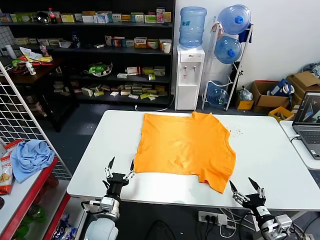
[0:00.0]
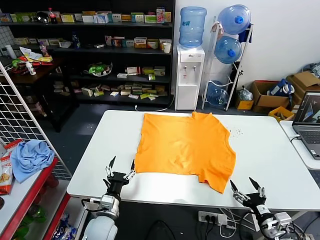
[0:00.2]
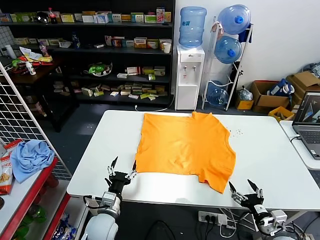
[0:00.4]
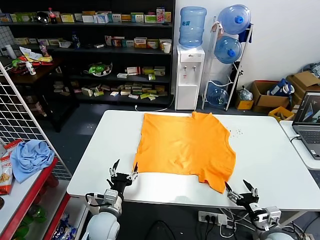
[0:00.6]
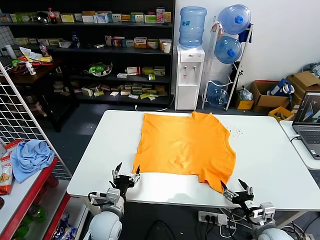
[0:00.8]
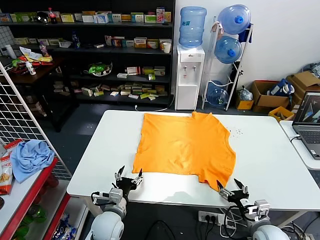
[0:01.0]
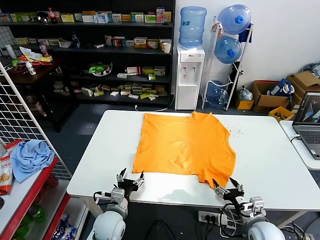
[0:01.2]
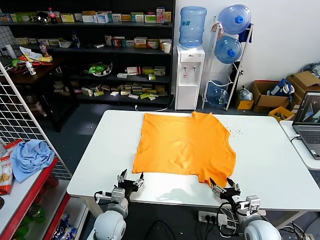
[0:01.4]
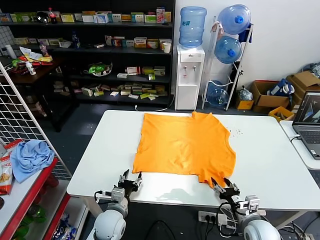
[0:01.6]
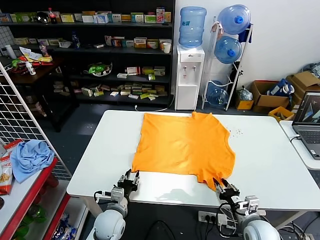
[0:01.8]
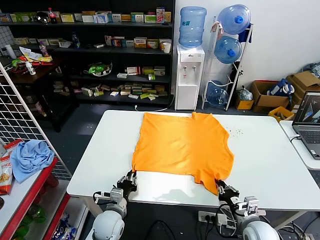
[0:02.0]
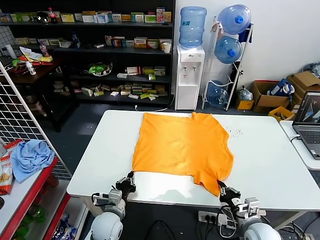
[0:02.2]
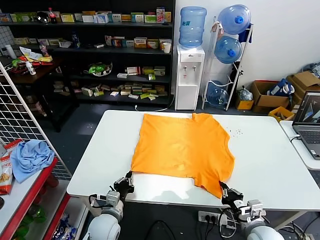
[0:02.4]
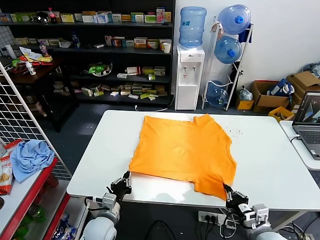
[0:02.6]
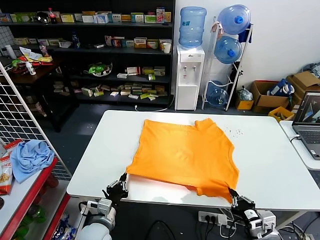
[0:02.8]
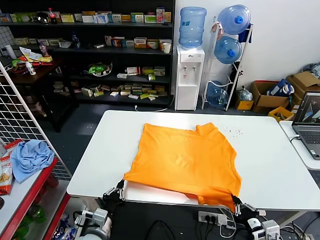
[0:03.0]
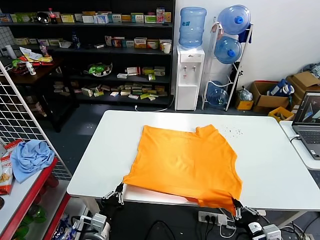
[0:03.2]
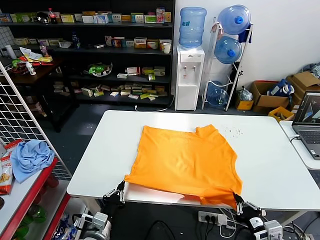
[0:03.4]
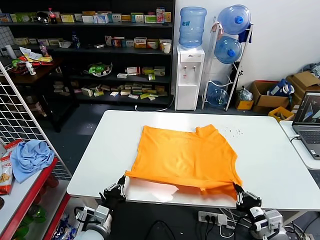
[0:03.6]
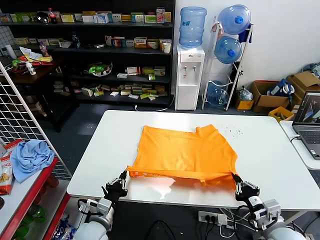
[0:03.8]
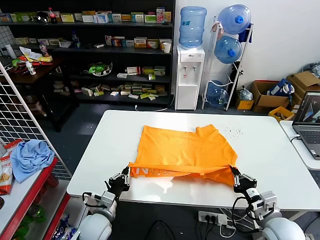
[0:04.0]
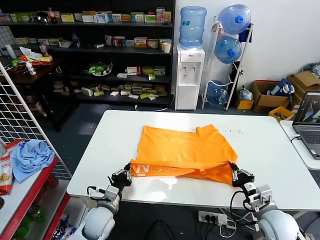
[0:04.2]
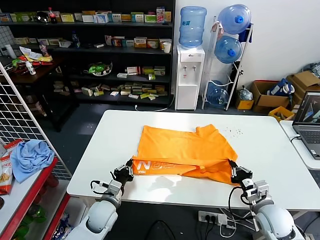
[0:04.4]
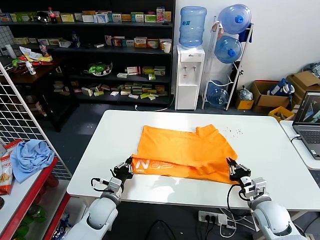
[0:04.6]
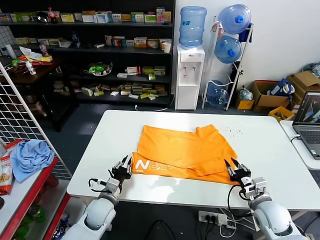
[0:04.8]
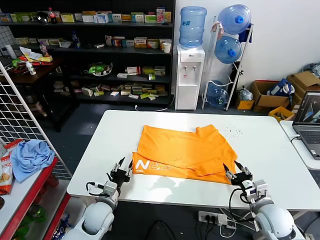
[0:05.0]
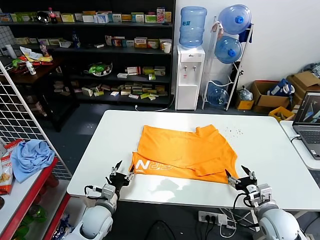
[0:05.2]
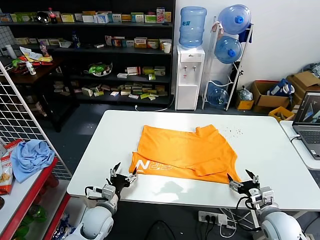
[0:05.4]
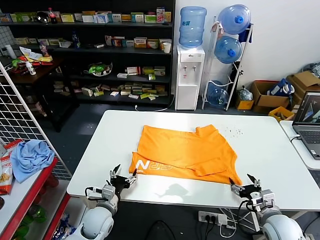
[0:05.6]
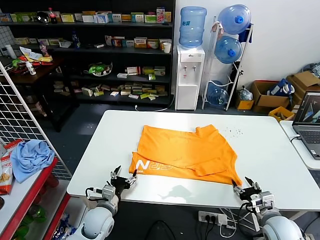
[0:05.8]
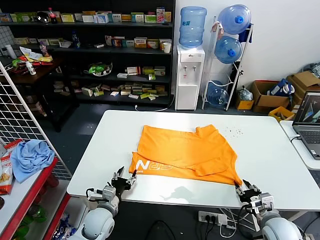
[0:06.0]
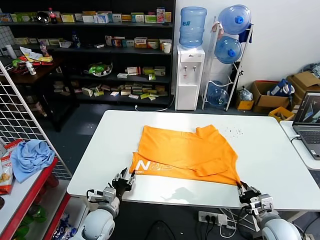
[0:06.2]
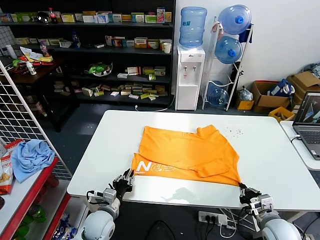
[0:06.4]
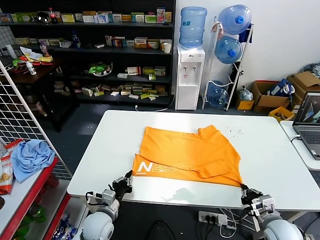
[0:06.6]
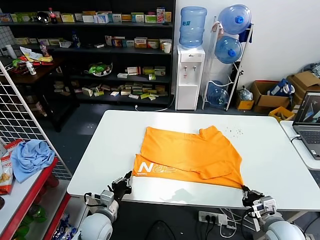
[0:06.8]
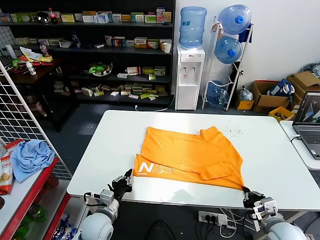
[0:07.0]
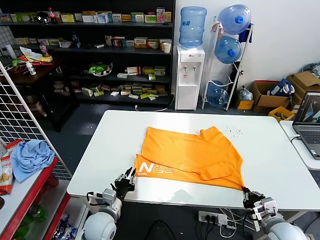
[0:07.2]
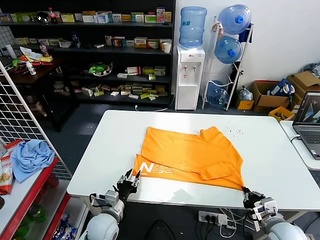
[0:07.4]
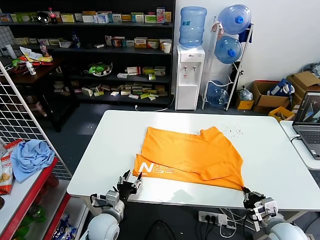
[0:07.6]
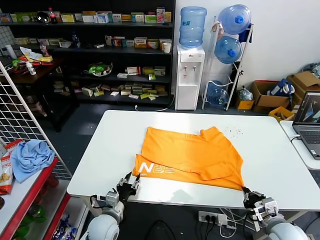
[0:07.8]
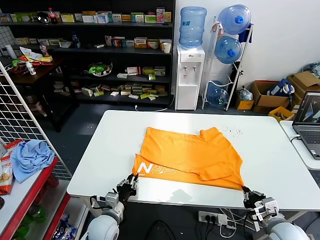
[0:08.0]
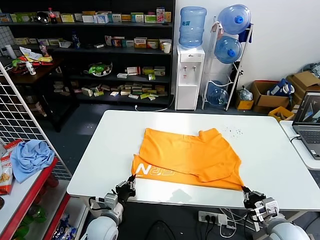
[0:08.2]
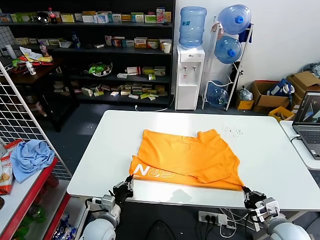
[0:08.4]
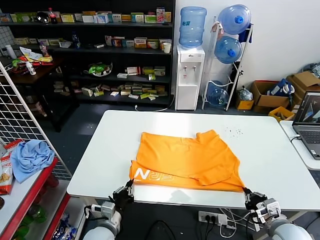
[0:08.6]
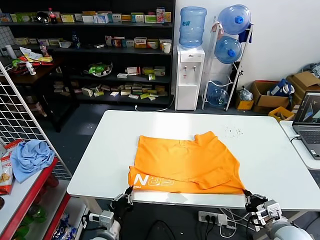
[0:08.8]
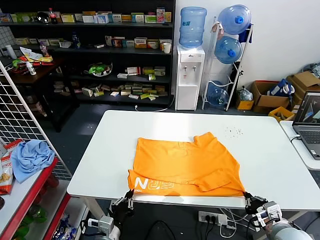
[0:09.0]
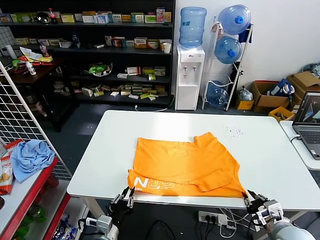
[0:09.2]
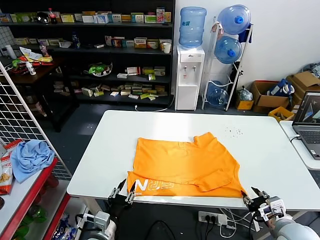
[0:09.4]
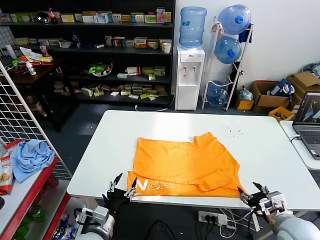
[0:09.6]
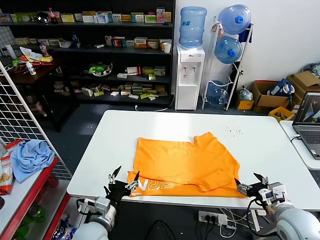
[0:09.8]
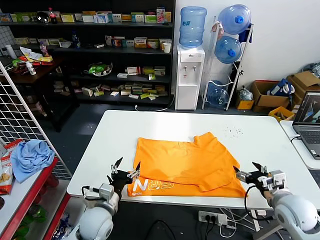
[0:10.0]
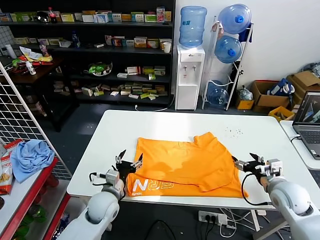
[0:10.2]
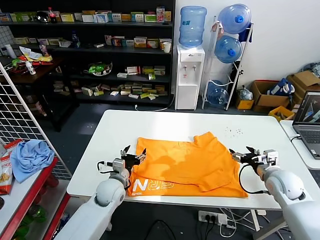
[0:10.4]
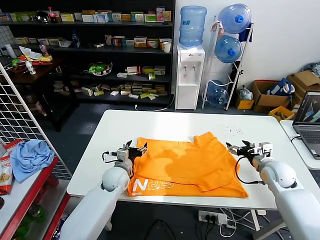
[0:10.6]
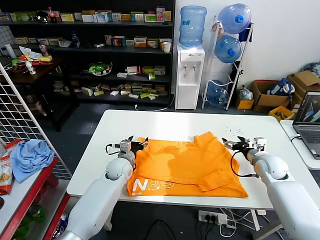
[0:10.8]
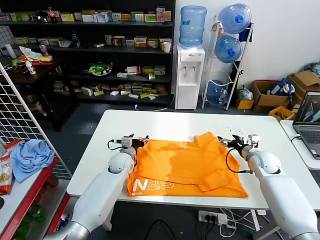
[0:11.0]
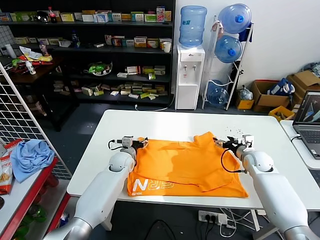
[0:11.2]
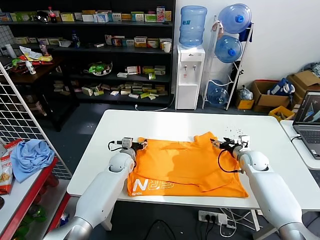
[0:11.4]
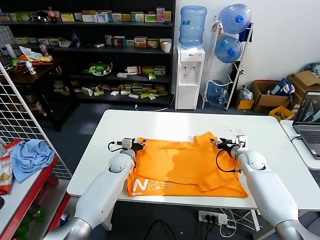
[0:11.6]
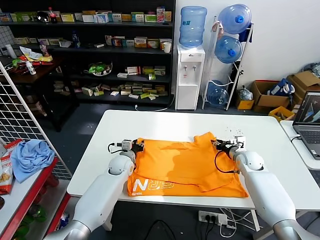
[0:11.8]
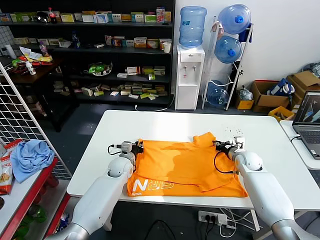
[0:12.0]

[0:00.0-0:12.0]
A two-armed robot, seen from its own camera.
Task of the whole recording: fold and organize the clothes.
Step, 0:00.0 to 0:02.0: use both grippers simultaneously to clamp the lower edge of the clothing fabric.
Step, 0:02.2 to 0:05.0: use both grippers to drag the lower edge of the fabric forward and fold it over the upper edge.
Step, 0:05.2 to 0:09.6: Drag the clothes downward with both gripper.
0:01.6 to 0:03.0: The right gripper heads backward and upward, covering about 15 cm, and closes up, while the left gripper goes some 10 cm backward, and closes up.
0:03.0 to 0:04.4: The grippers both shift forward by roughly 15 cm.
0:04.4 to 0:06.0: The right gripper opens up, while the left gripper opens up.
0:06.0 to 0:07.6: The left gripper closes and opens again. Meanwhile the right gripper closes its fingers.
0:07.6 to 0:09.0: The left gripper moves backward, approximately 10 cm, and closes.
0:09.0 to 0:10.4: Both grippers move forward, some 20 cm. The left gripper opens up, while the right gripper opens.
0:10.4 to 0:12.0: The right gripper goes about 15 cm forward and downward, and closes. The left gripper shifts roughly 10 cm forward, and closes.

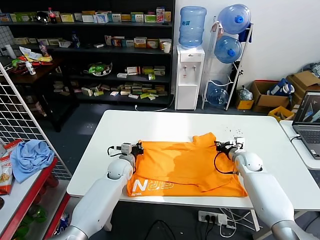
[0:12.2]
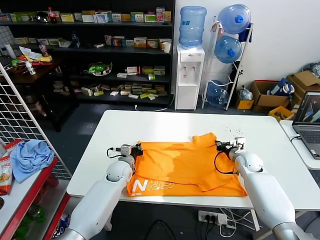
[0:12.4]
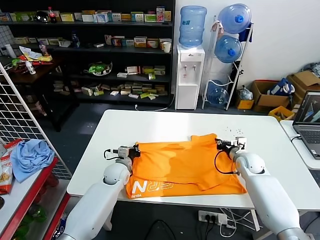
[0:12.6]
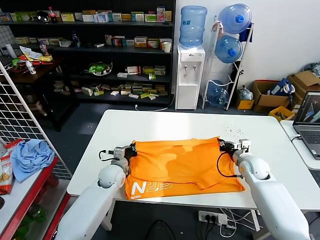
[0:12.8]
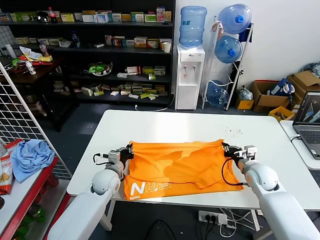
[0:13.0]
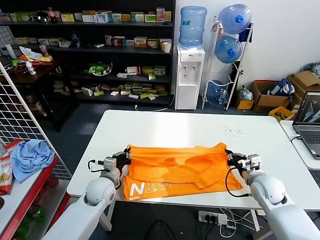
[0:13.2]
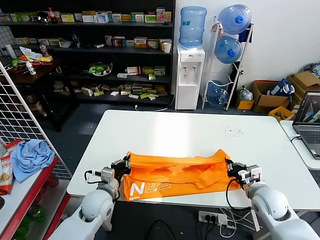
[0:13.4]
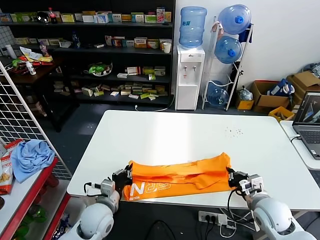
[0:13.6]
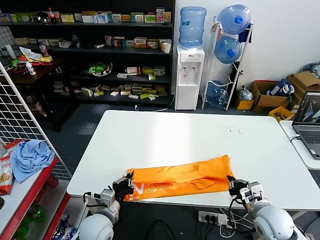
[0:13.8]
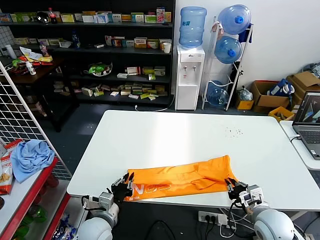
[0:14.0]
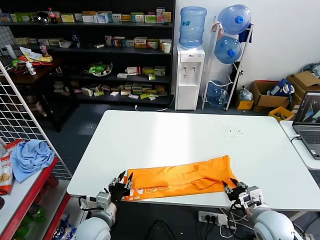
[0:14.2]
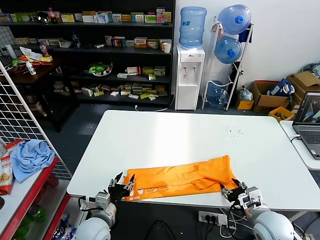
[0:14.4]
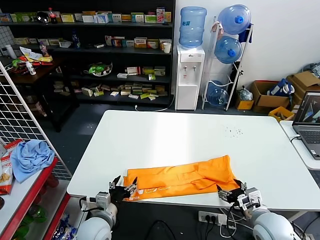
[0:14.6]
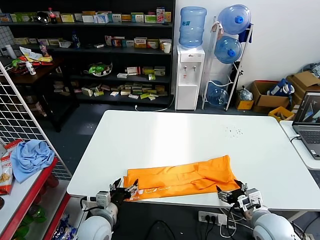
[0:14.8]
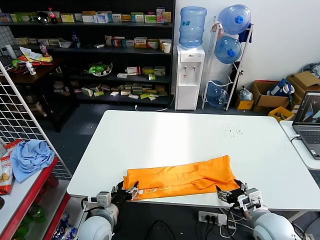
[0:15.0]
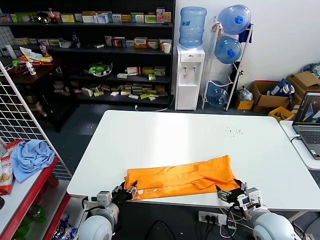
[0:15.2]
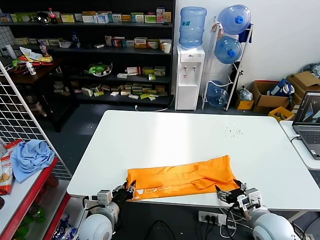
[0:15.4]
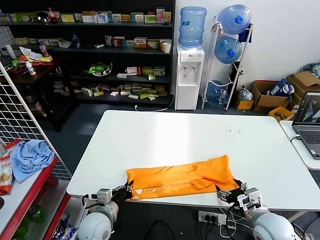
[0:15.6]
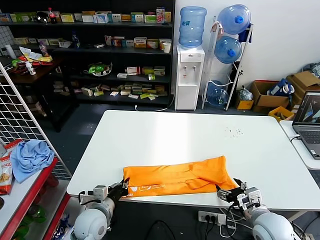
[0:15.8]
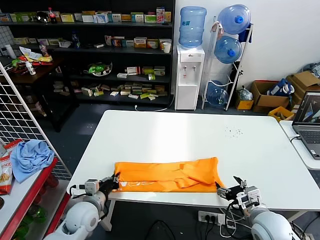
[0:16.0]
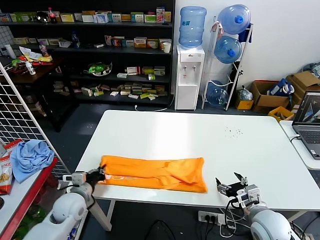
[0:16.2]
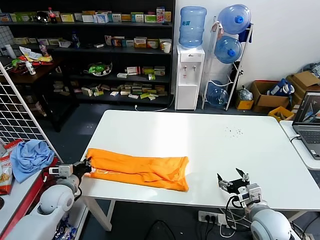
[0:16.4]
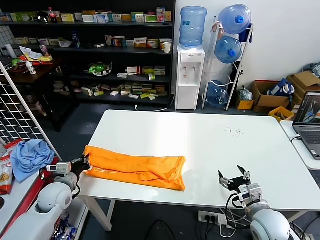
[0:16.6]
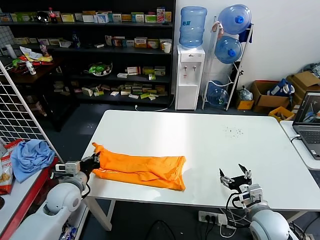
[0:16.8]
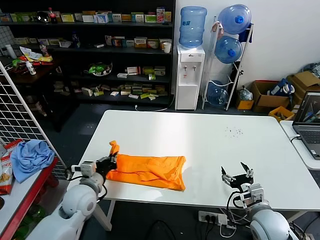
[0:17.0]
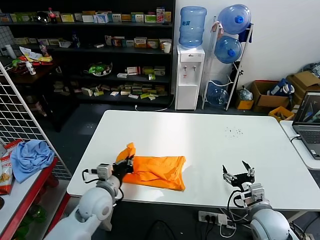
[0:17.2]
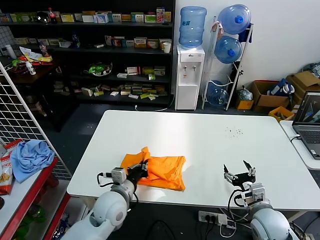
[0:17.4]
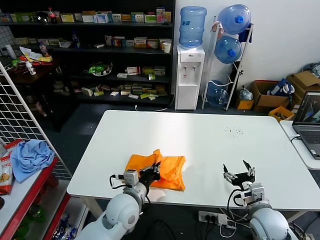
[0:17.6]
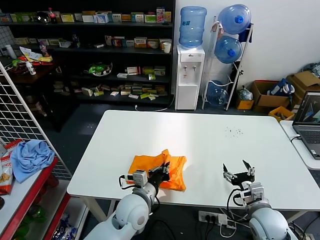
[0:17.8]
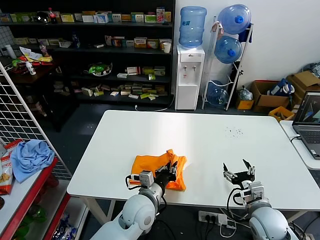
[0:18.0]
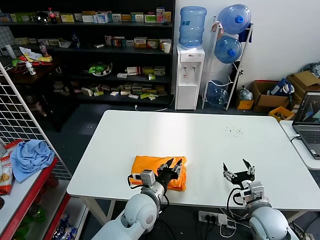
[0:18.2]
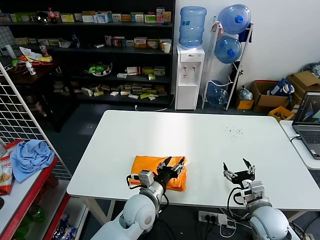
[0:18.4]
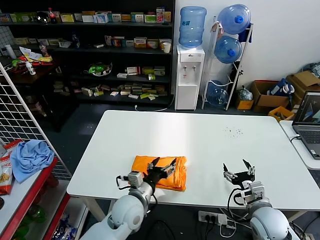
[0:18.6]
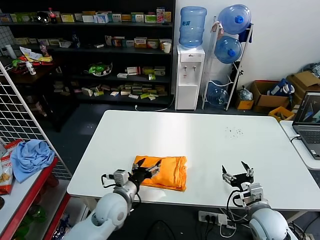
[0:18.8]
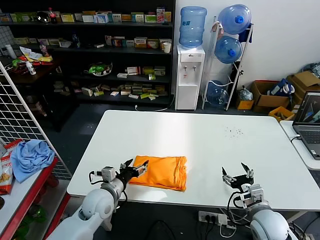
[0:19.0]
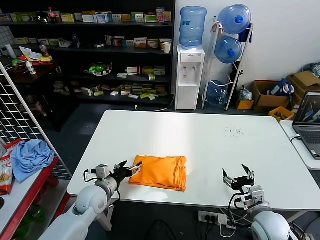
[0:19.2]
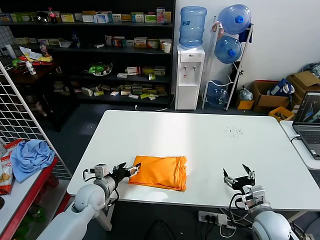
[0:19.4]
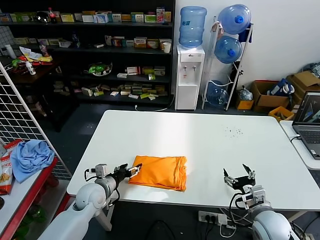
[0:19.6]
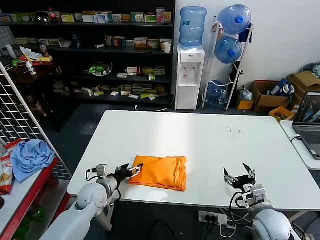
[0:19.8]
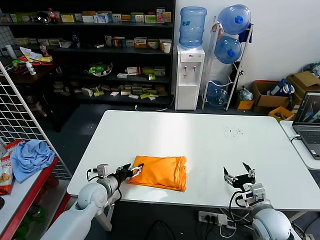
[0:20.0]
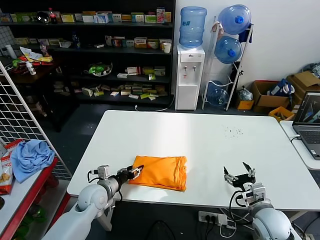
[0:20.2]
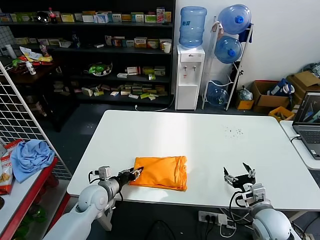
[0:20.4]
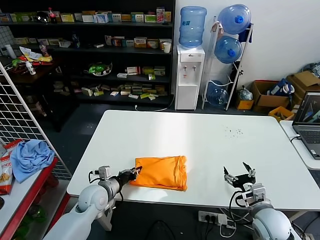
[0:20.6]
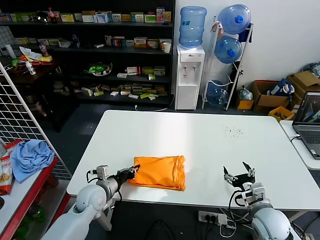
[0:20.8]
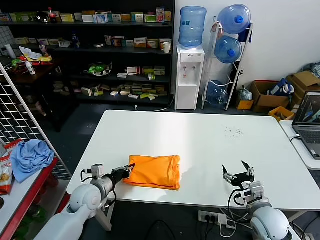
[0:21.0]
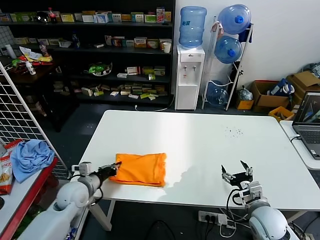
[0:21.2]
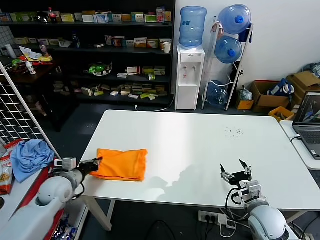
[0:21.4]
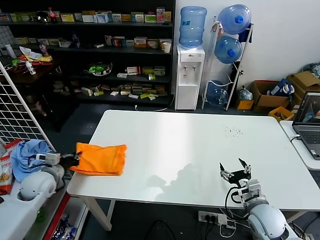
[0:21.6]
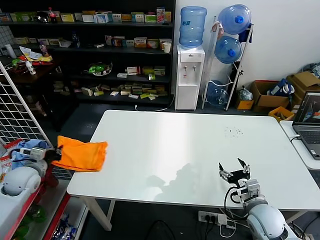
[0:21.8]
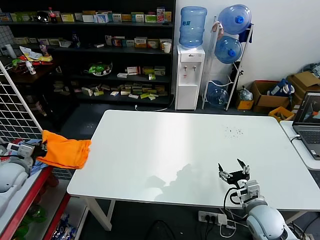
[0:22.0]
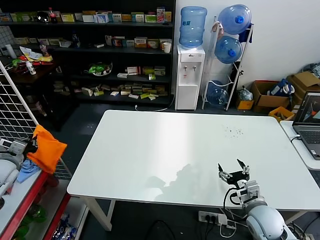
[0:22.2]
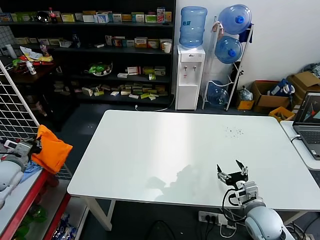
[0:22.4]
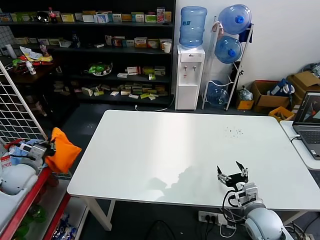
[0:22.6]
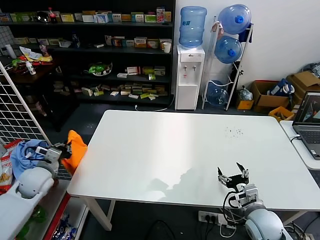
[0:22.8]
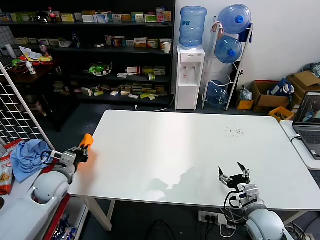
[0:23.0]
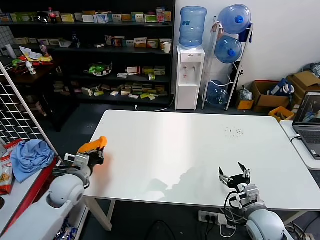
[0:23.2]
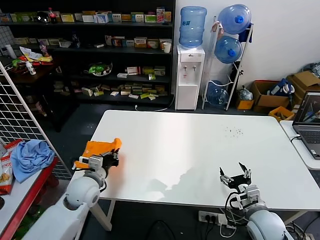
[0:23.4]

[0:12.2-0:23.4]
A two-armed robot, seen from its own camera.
Task of the whole recording: fold and organize the clothes.
Step, 0:12.6 to 0:14.6: use both grippers to drag the upper edge of the fabric backward and fold it over the lower edge.
Step, 0:14.8 to 0:15.6: use the left gripper to clamp the left edge of the fabric.
Step, 0:15.8 to 0:18.4: use the left gripper to drag the left edge of the fabric to the left and folds it over the right edge.
0:12.2 to 0:13.8: The grippers both shift backward by roughly 25 cm.
0:13.8 to 0:15.4: The left gripper opens its fingers; the right gripper opens up.
0:15.4 to 0:17.0: The left gripper goes some 10 cm upward, forward and to the left, and closes up.
0:17.0 to 0:18.6: The left gripper moves to the right, some 20 cm, and opens its fingers.
0:18.6 to 0:20.2: The left gripper travels to the left by roughly 15 cm.
0:20.2 to 0:21.8: The left gripper is displaced to the left and upward by approximately 20 cm, and closes up.
0:21.8 to 0:23.4: The left gripper goes roughly 20 cm to the right.
